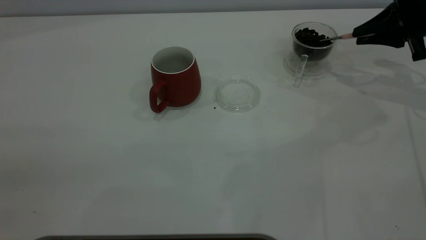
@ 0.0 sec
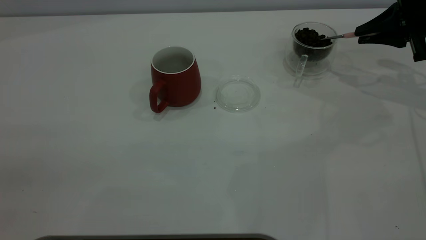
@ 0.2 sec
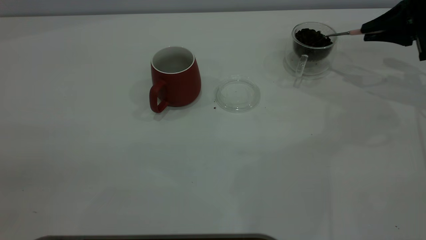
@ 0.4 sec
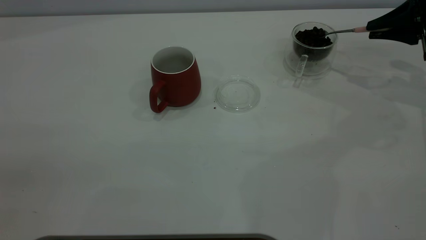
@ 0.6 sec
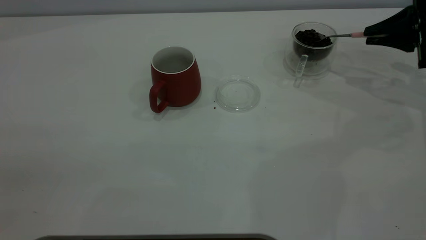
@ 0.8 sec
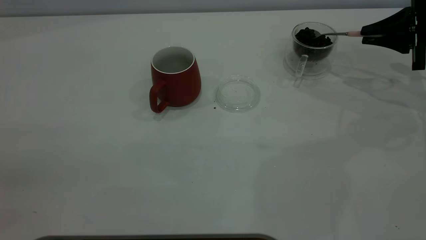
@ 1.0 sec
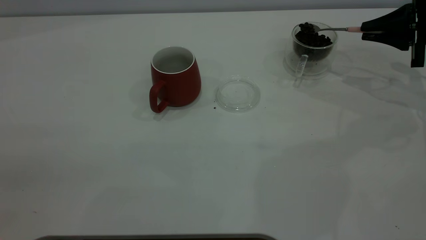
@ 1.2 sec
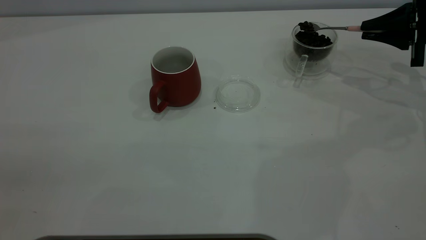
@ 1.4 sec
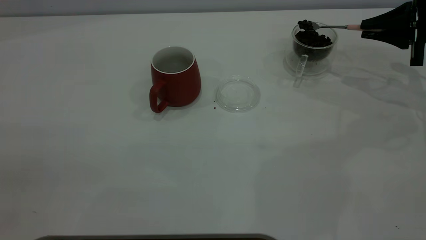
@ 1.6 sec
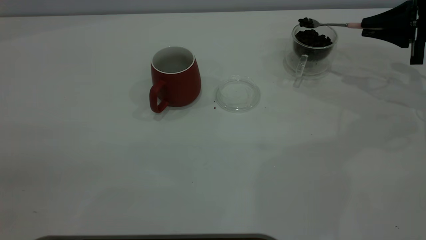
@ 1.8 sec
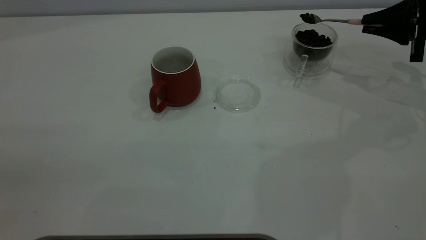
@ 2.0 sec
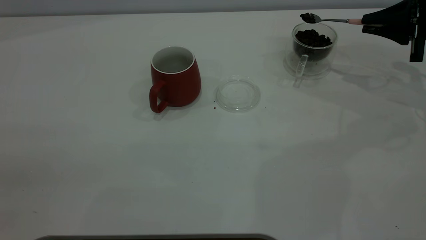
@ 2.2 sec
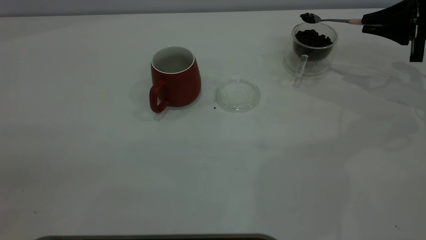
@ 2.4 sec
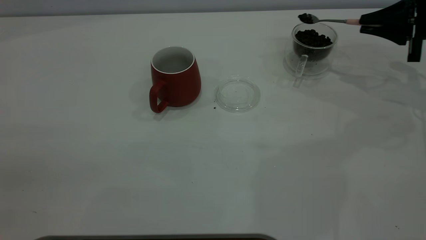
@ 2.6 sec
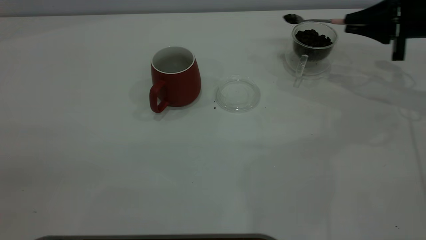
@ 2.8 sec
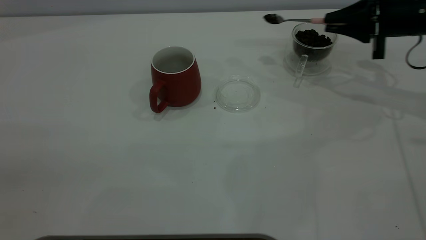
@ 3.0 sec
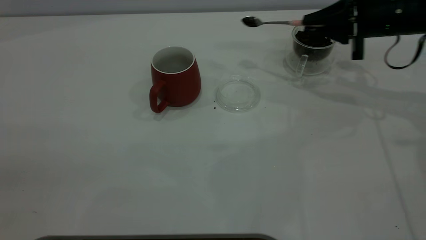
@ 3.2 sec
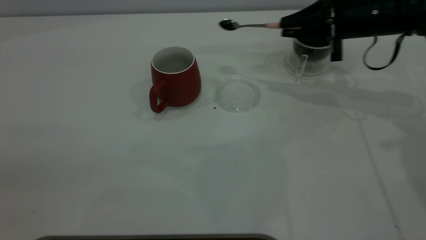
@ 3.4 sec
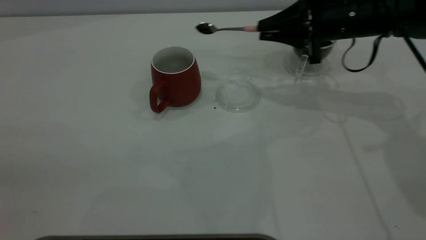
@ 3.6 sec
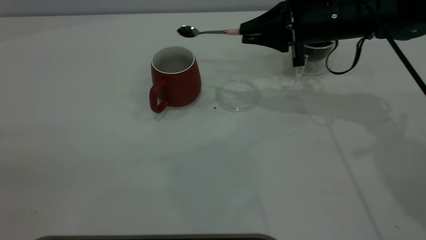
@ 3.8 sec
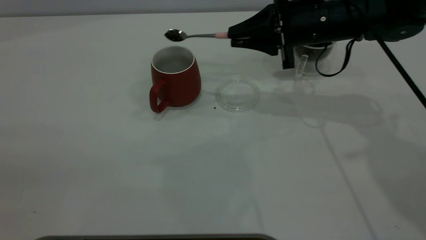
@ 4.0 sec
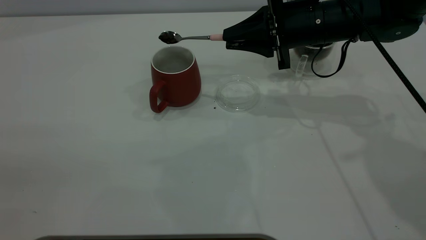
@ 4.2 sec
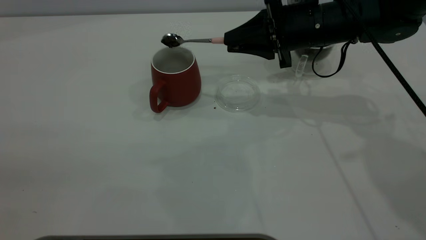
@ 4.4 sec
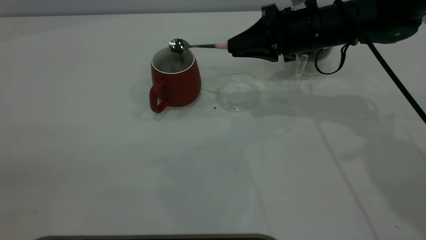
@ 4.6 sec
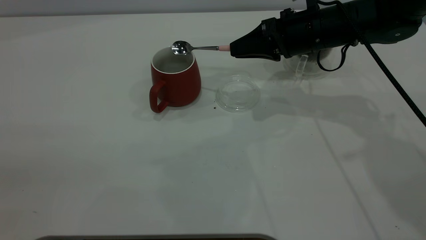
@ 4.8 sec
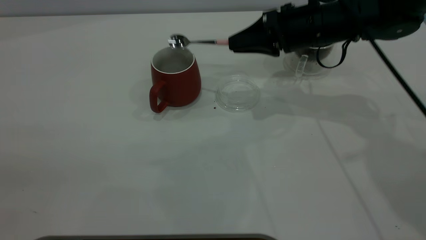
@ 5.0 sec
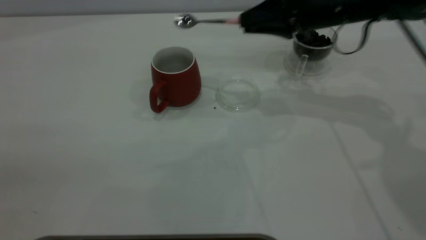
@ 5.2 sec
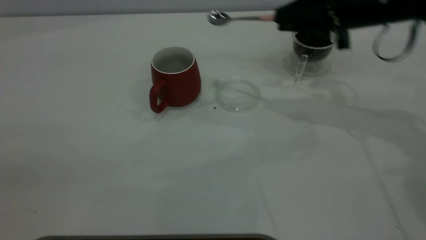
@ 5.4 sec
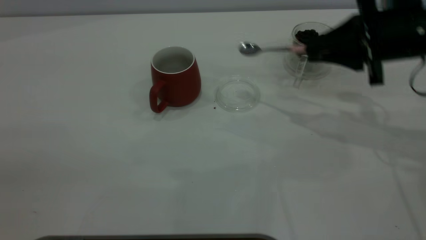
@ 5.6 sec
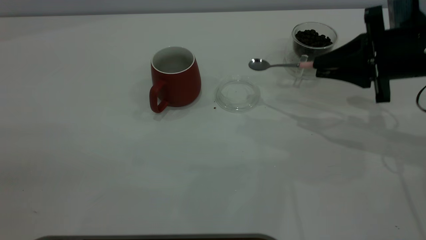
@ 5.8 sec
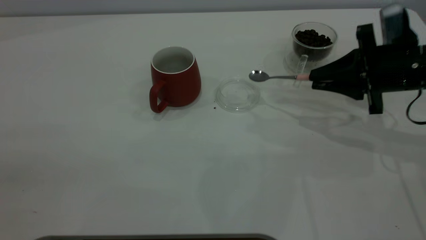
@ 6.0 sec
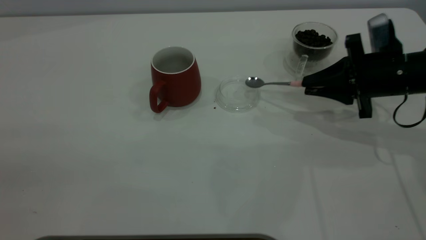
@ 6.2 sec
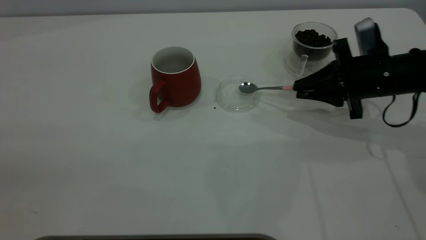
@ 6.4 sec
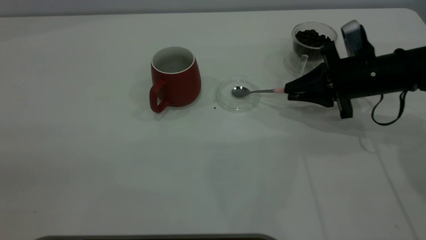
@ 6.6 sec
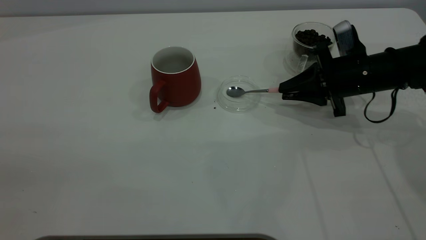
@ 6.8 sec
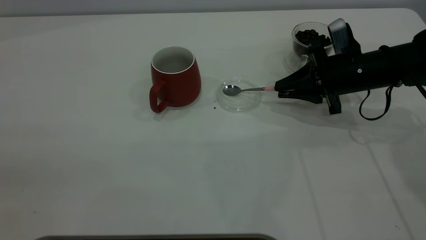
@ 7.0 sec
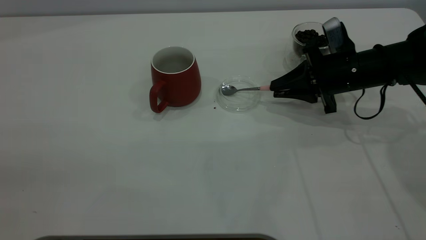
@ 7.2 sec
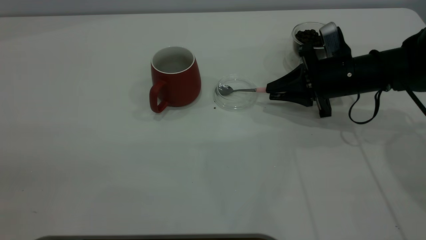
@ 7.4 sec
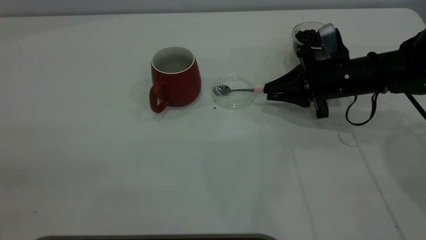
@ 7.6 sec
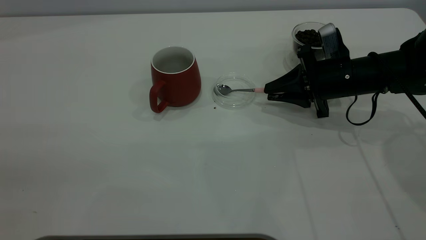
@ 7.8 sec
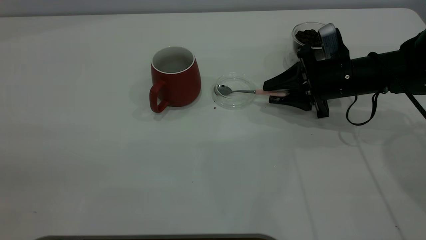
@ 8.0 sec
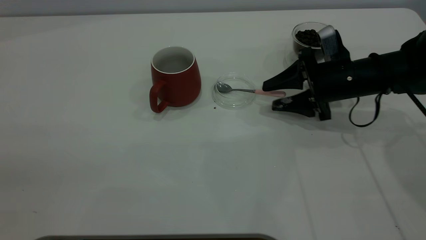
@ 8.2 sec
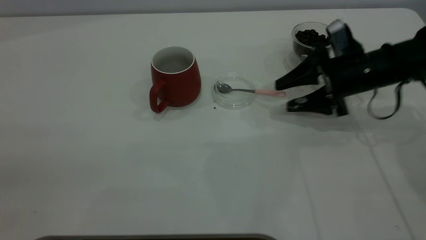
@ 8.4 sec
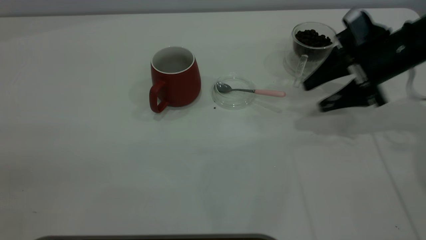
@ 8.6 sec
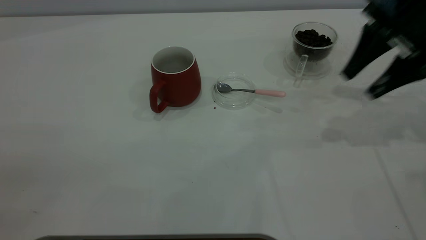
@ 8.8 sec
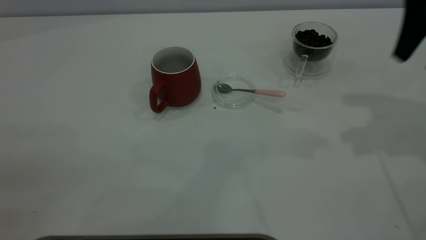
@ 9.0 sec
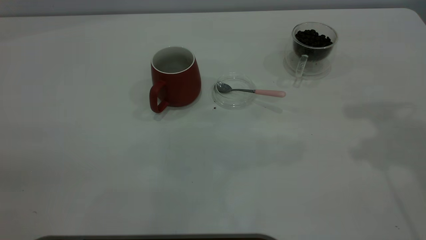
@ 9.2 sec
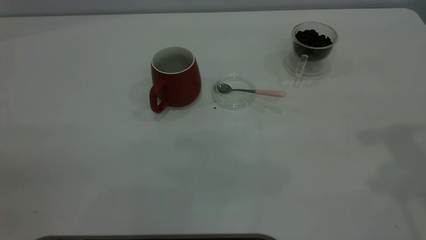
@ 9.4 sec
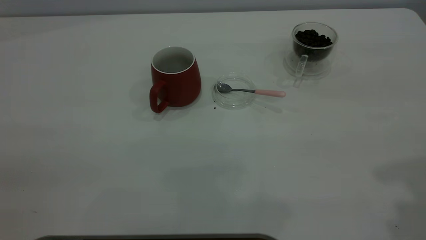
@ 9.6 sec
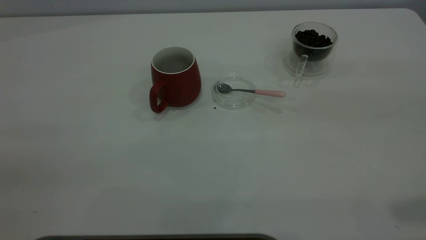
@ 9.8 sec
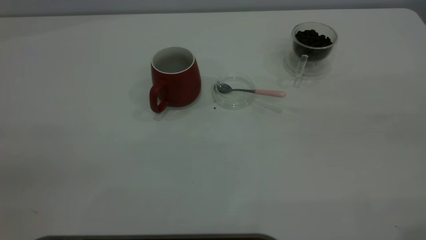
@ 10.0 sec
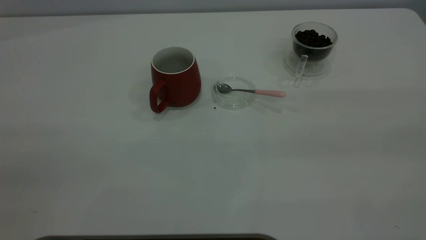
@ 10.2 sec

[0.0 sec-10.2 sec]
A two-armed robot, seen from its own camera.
Task of the whole recording: the left gripper place the red cup in the center of the table, the right gripper take the pink spoon from the cup lid and scoop out the coffee beans from the coffee cup and put them into the red cup, the right gripper put the spoon back into the cup lid.
Step, 0.0 sec to 5.0 sec: Scoop a spoonful of beans into the cup.
Step, 5.2 sec to 8.4 sec: Place the spoon back in its original place.
0.0 sec to 1.4 sec: The grippers make only small movements.
1.4 sec to 3.0 sec: The right gripper shifts approximately 5 cm to the left.
3.0 sec to 4.4 sec: The right gripper shifts roughly 15 cm to the left.
4.4 sec to 5.8 sec: The right gripper heads to the right and backward, covering roughly 15 cm.
5.8 sec to 7.2 sec: The right gripper moves downward and forward, some 10 cm.
7.2 sec to 8.8 sec: The right gripper goes some 15 cm upward and to the right, and opens.
8.8 sec to 10.2 sec: The right gripper heads backward and upward, covering roughly 35 cm.
